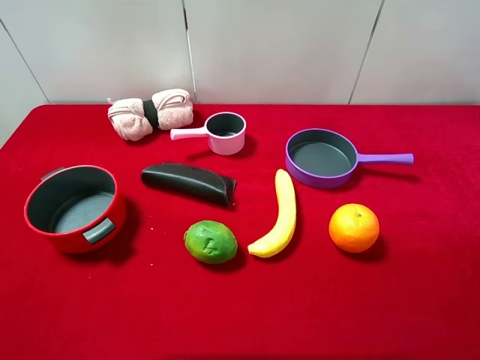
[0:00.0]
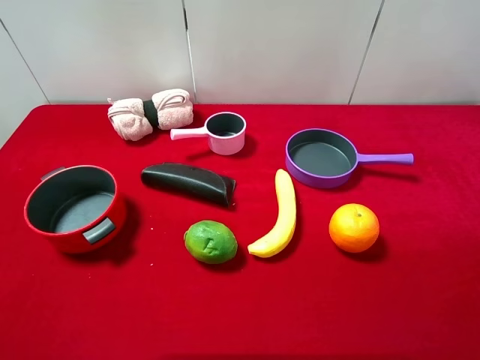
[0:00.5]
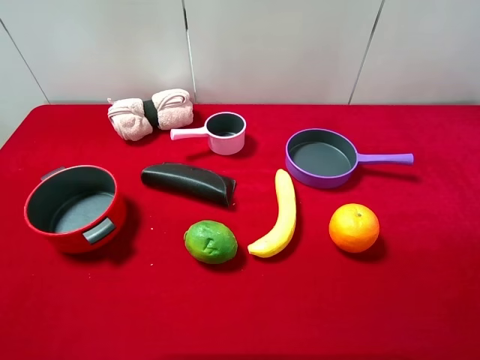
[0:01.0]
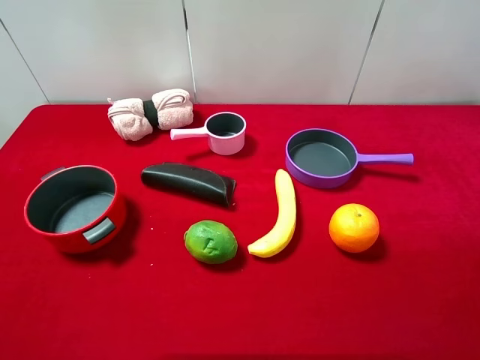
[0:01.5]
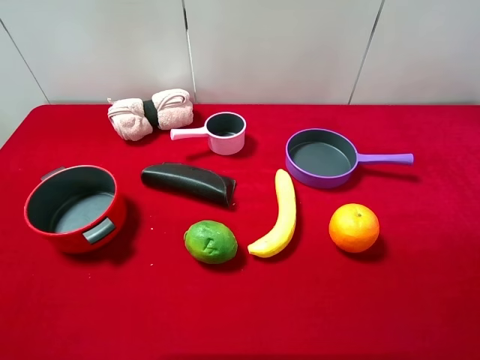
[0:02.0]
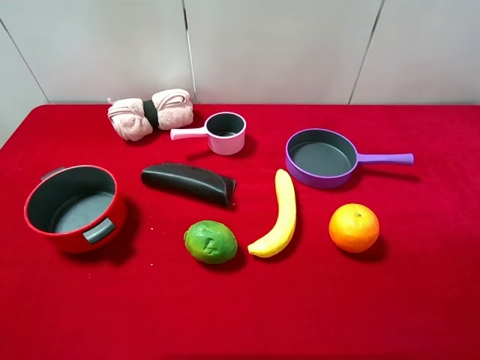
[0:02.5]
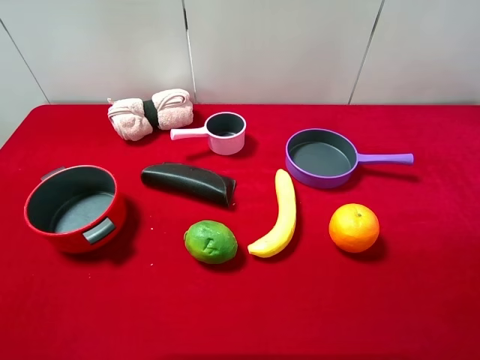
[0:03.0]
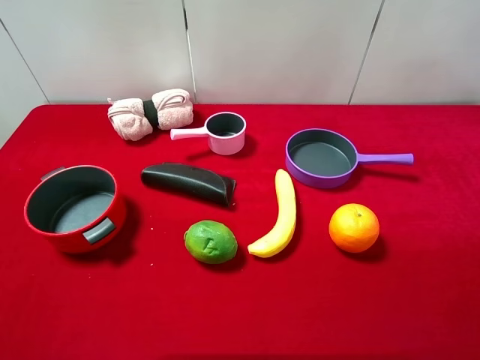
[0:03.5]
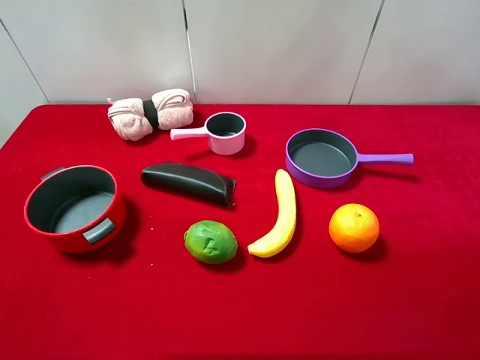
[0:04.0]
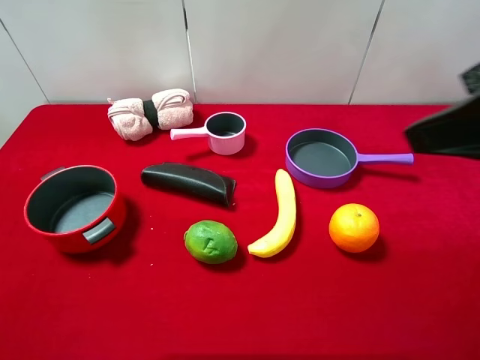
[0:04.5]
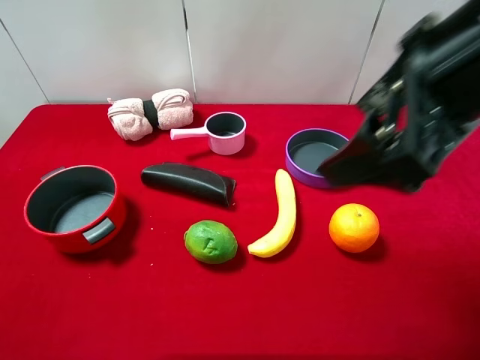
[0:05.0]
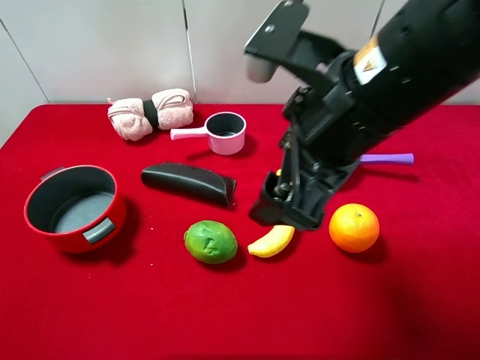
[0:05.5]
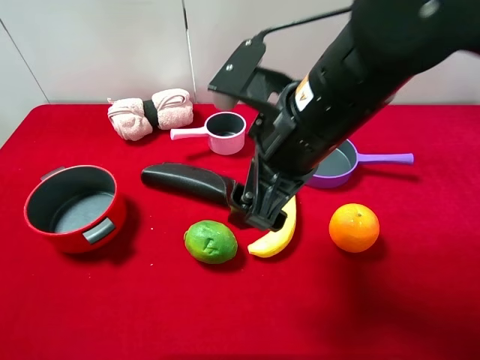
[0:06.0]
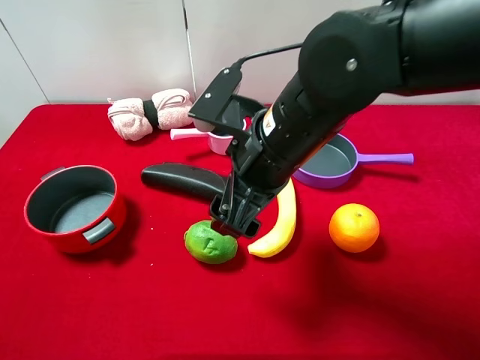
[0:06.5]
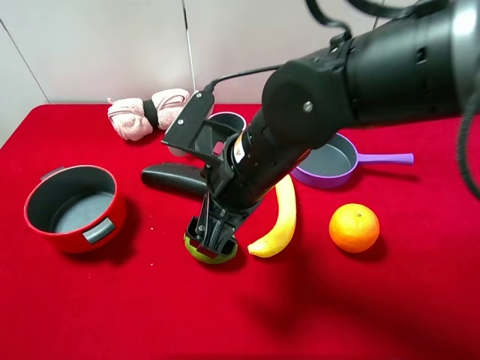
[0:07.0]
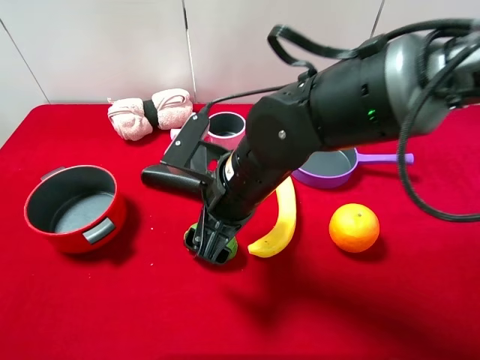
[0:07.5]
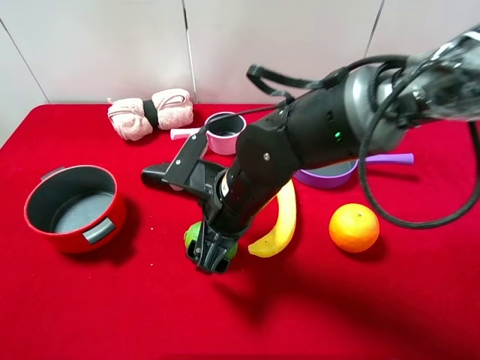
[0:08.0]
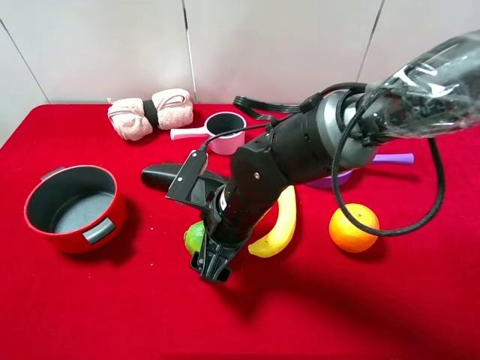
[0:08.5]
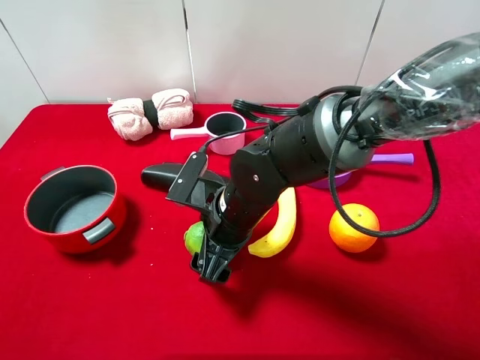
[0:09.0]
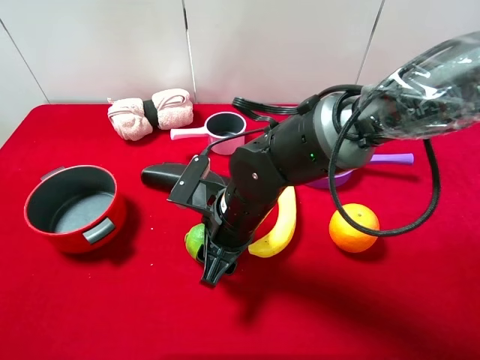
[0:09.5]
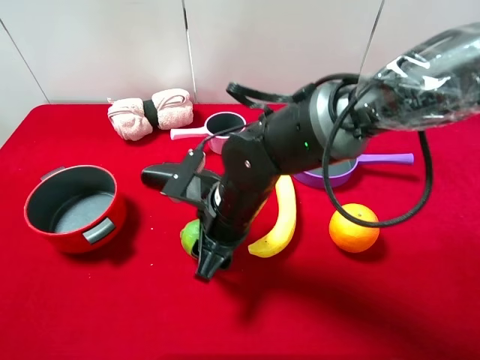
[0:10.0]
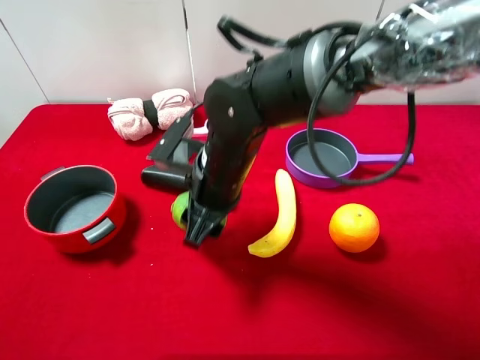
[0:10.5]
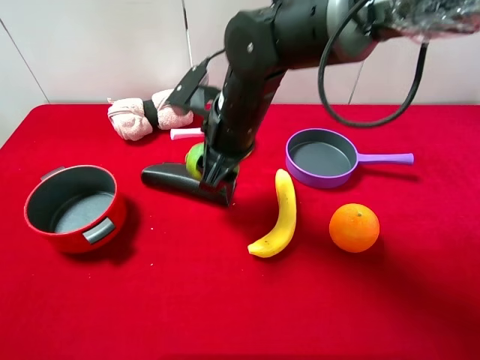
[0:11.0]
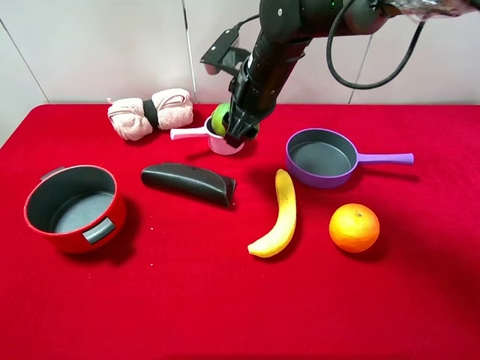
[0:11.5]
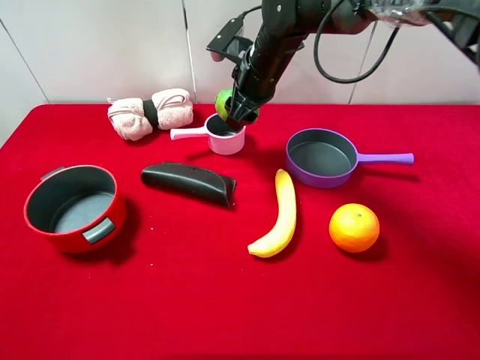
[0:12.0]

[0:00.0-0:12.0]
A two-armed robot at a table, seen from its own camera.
Task of the whole recording: pick up an item with a gripper and place it in a random container on the desktop.
0:00.0 to 0:02.0: Neither gripper changes place.
0:04.0 to 0:06.0: The right gripper is displaced to the left, forward and downward by some 25 cm.
0:06.0 to 0:08.0: The right gripper moves downward and to the left, about 15 cm.
0:08.0 to 0:10.0: The right gripper closes.
0:10.0 to 0:12.0: The right gripper heads forward, covering approximately 20 cm.

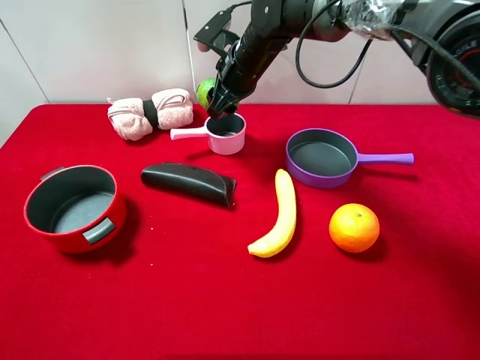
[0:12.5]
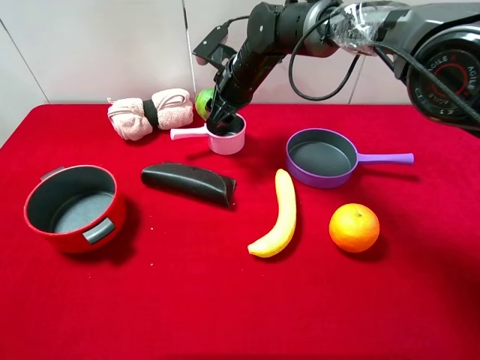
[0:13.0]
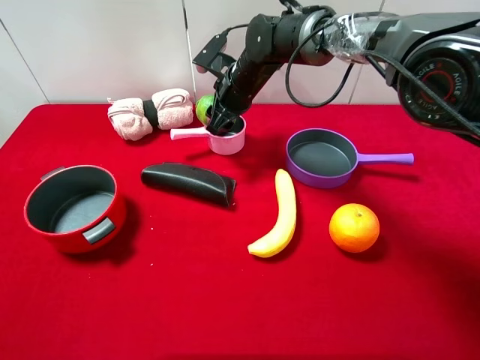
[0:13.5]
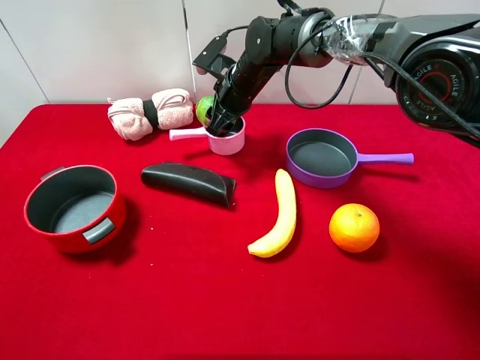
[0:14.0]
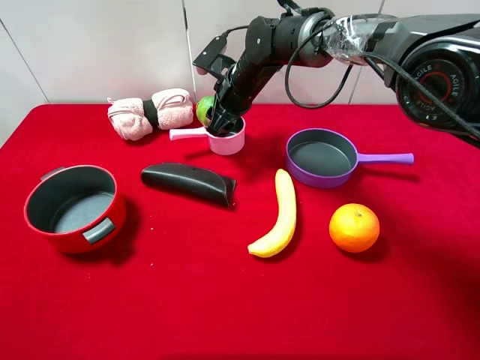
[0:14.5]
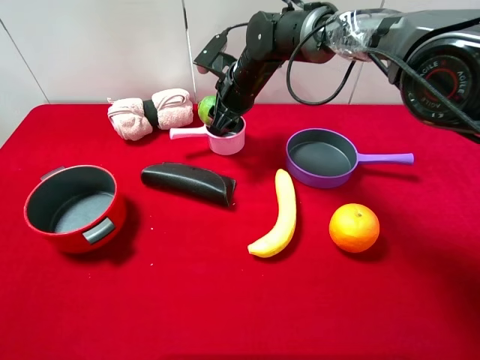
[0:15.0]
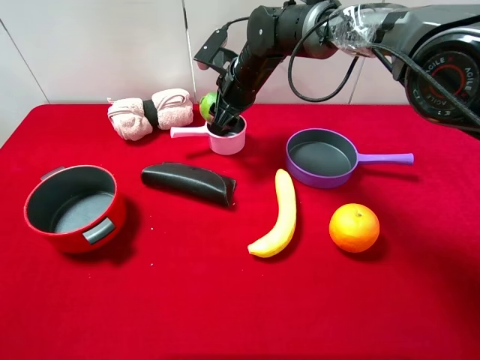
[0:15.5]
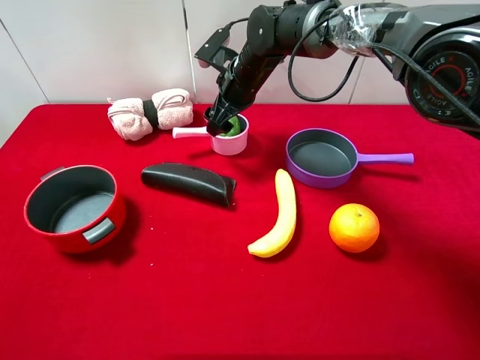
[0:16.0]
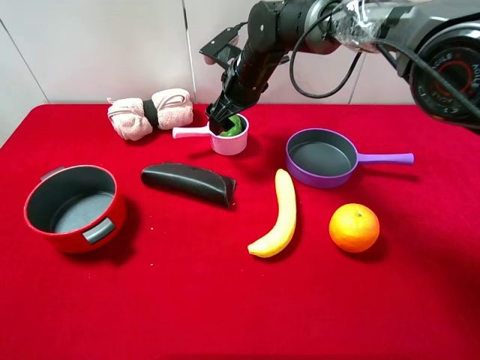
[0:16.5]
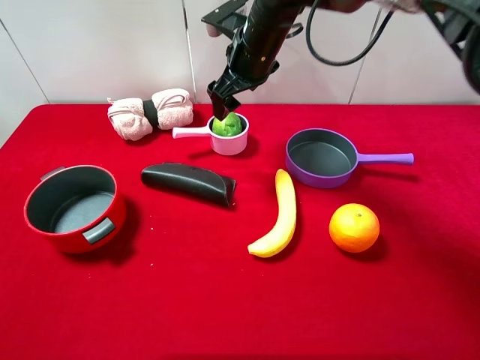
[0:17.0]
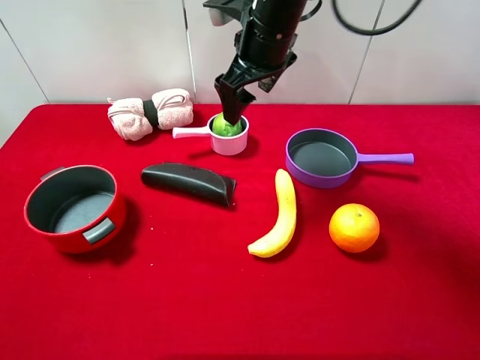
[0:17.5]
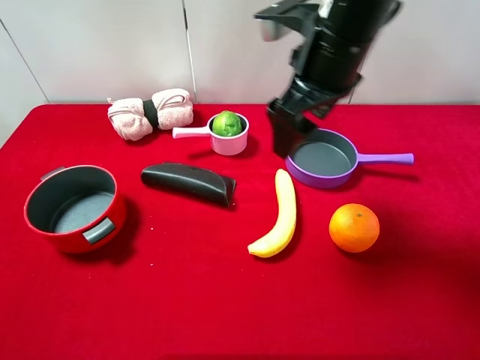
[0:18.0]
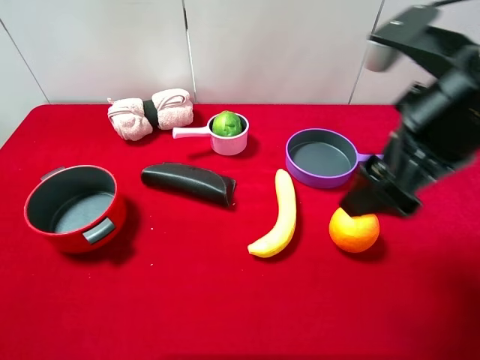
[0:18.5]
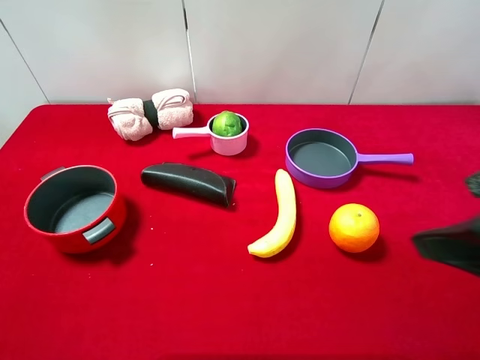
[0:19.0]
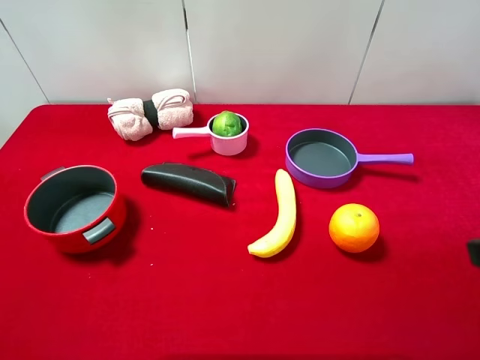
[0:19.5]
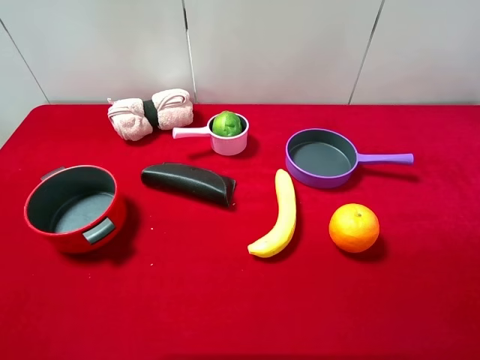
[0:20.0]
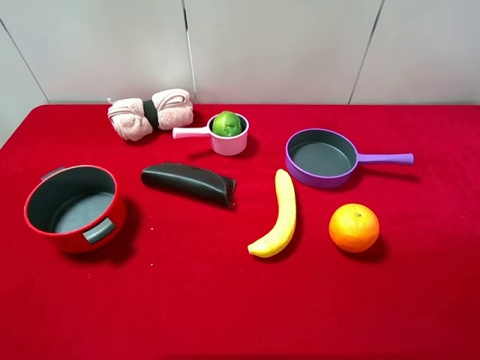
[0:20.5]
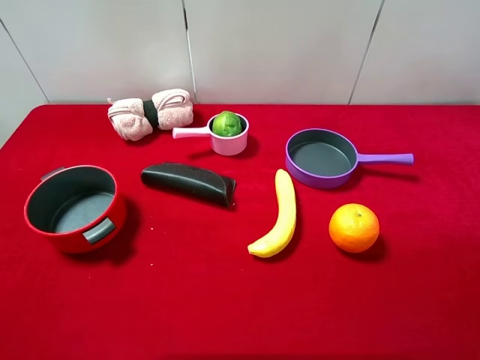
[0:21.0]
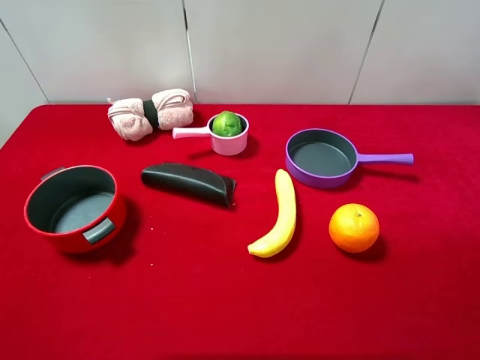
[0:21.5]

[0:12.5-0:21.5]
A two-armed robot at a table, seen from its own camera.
Task of the whole recording: pick up an item with a gripper and place it in a random container on the desktop.
0:12.5 to 0:14.5: There are only small adjustments of the grippers.
0:14.5 to 0:17.0: The right gripper travels upward by some 10 cm, and opens.
0:17.0 to 0:19.5: The right gripper moves backward and to the right, about 40 cm.

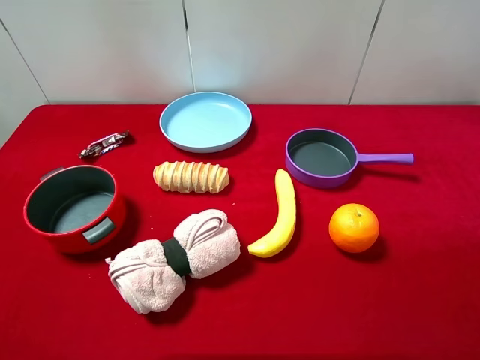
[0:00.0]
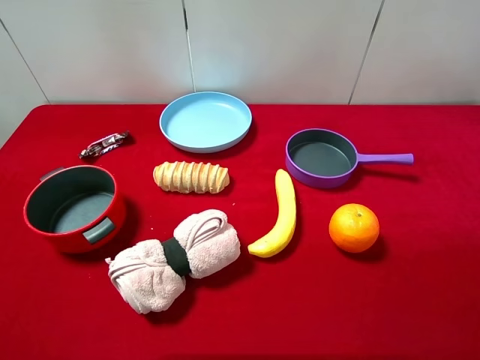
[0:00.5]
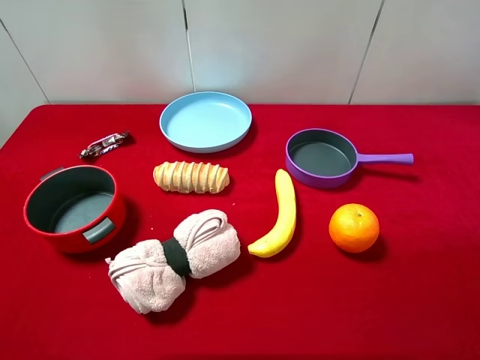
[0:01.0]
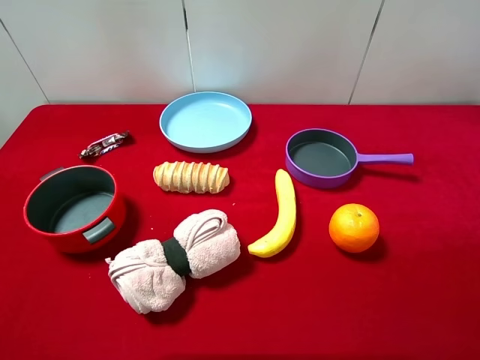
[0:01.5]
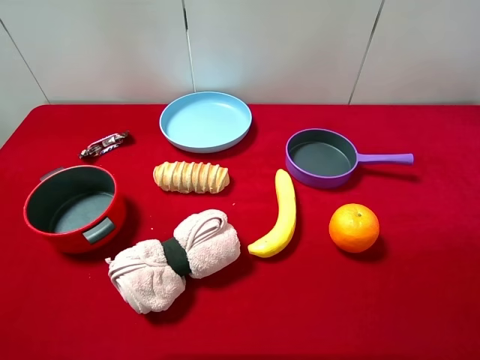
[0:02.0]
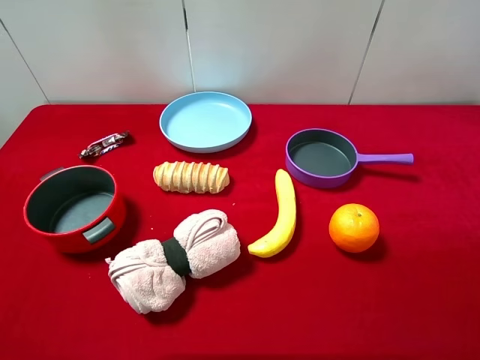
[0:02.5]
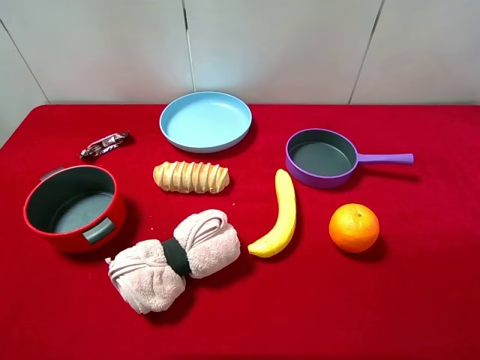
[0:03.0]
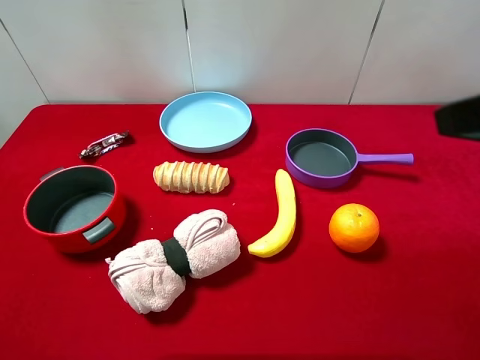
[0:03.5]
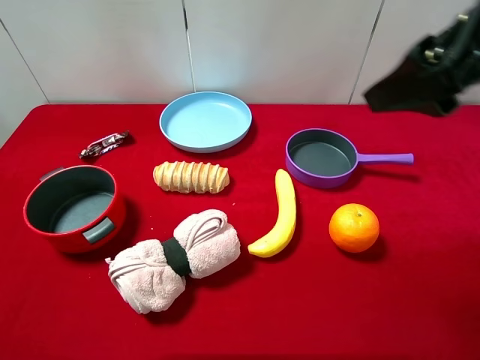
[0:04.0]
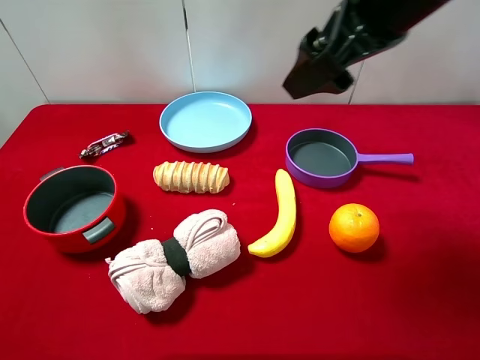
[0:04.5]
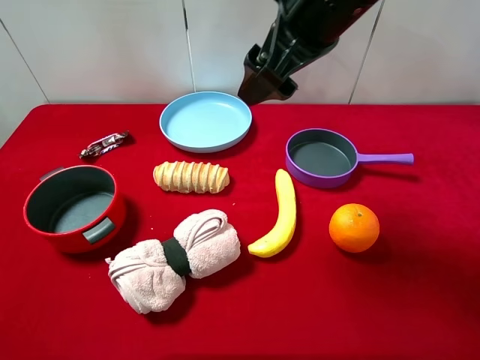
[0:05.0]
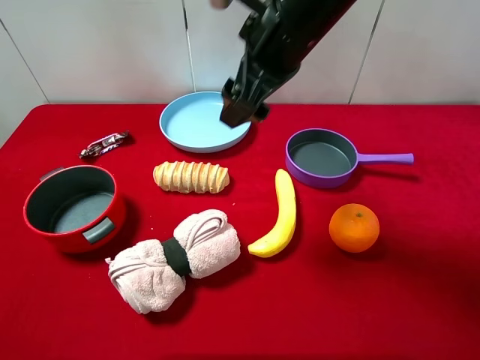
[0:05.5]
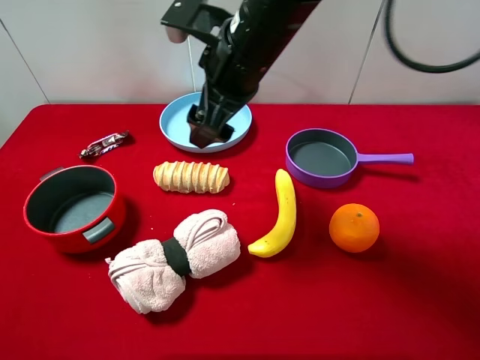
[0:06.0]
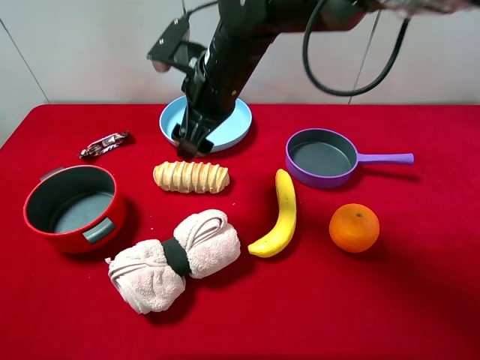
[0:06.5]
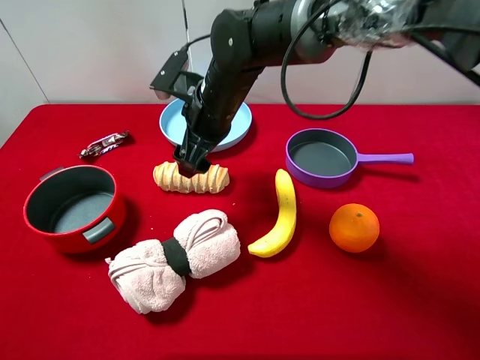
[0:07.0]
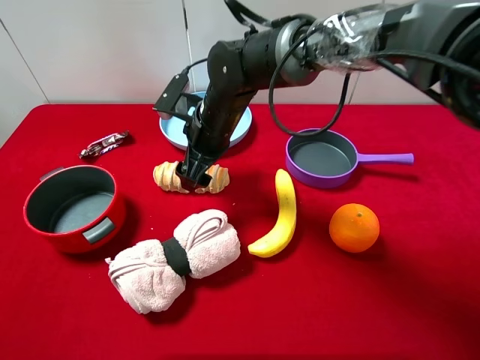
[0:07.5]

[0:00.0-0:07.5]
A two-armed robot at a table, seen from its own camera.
Task of the whole recording: pick up an item with a gripper and place it in a random container on the desktop.
0:00.0 to 0:02.0: Neither gripper changes place.
0:02.0 to 0:04.0: The right gripper goes roughly 20 cm forward and to the left.
0:04.0 to 0:05.5: The right gripper heads to the left, forward and downward, covering roughly 20 cm.
0:05.5 to 0:07.5: The right gripper heads downward and to the left, covering some 15 cm.
